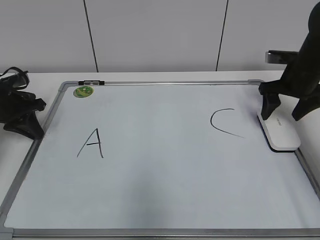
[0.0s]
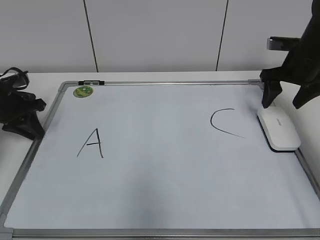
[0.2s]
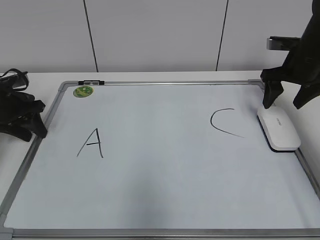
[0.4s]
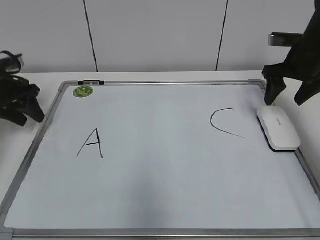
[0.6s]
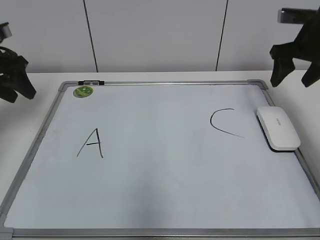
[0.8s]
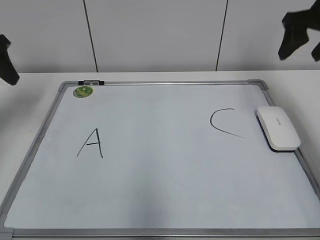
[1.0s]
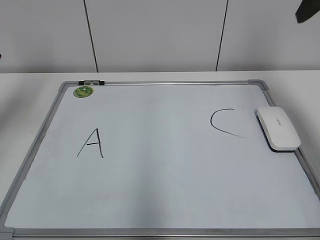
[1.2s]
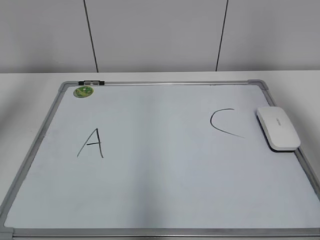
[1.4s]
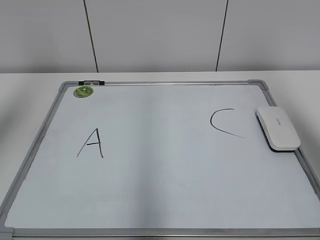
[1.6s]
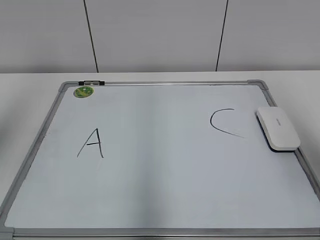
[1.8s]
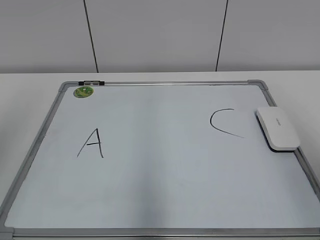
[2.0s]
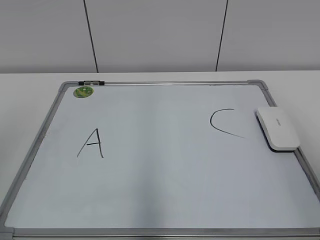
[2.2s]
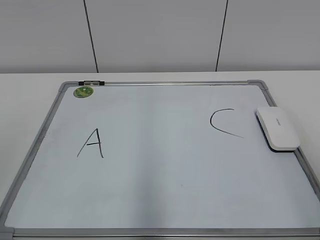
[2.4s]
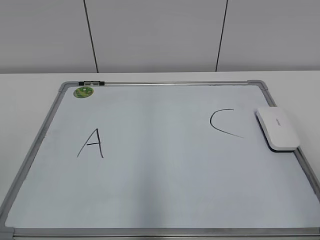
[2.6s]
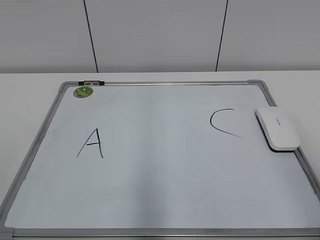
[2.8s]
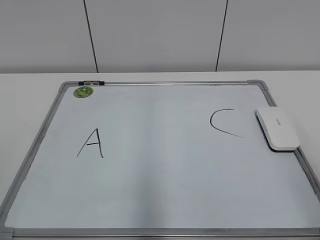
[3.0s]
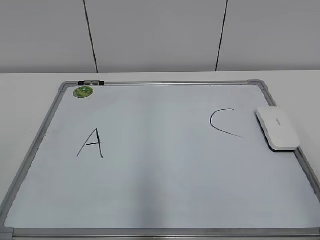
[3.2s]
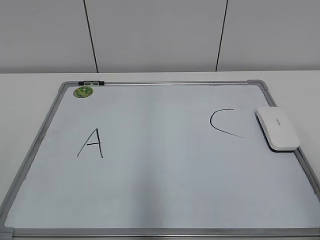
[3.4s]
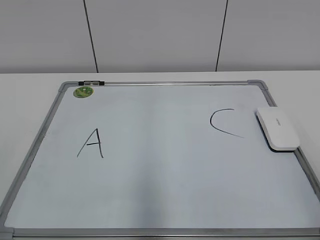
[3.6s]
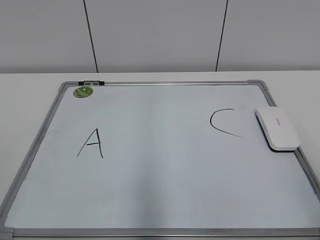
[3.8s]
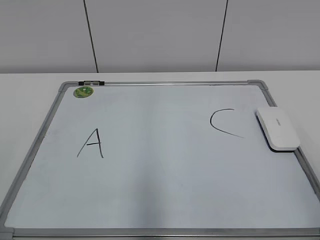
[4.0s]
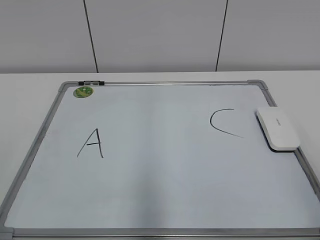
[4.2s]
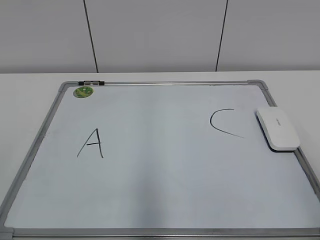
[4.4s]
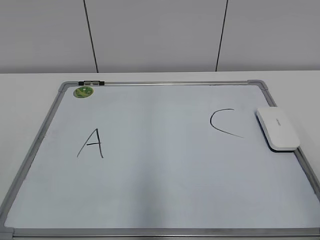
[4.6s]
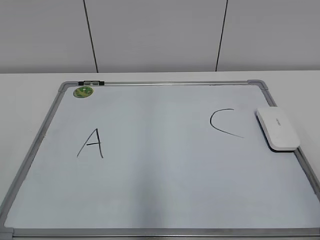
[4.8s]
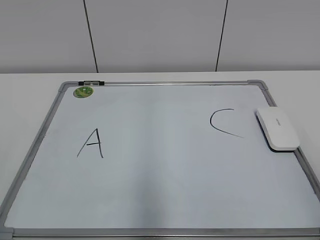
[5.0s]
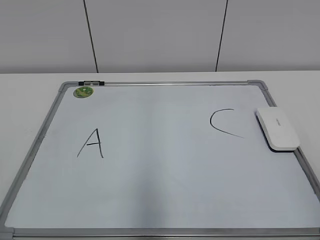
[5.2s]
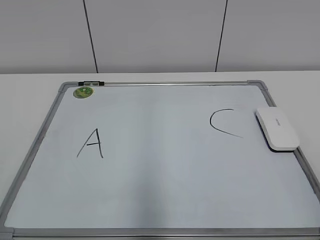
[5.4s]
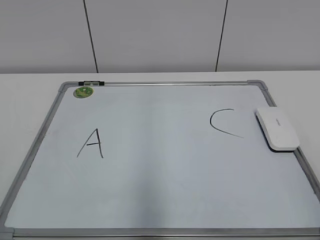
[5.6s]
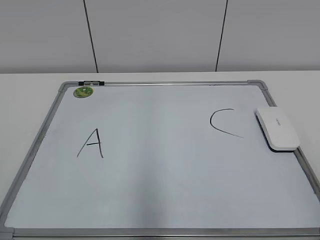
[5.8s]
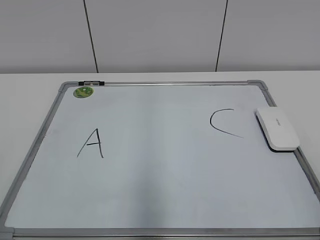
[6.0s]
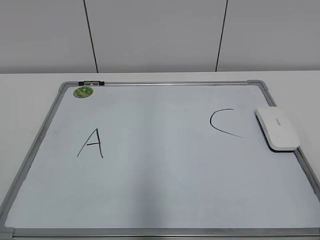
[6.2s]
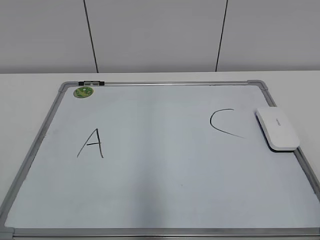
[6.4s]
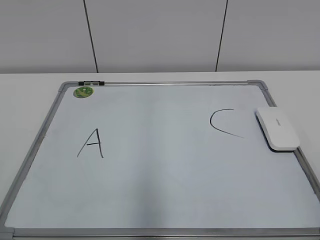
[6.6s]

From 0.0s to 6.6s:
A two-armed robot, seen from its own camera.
Task of the whole recording: pick up the eraser on the blackboard and erase the letter "B".
From 0.0s to 1.6s: The two grippers go roughly 30 cm upward and backward. The left gripper opens its fingers.
From 1.6s to 3.2s: Both grippers travel together backward and downward, roughly 25 cm.

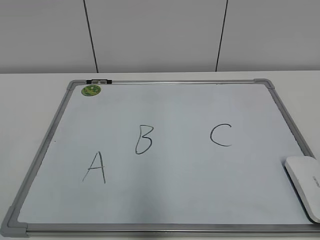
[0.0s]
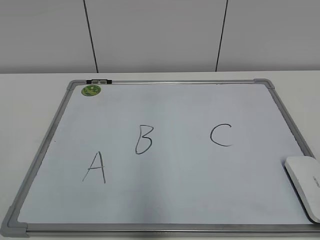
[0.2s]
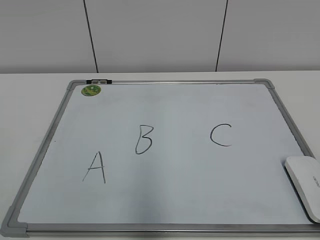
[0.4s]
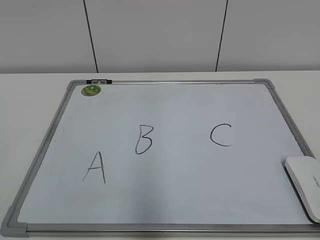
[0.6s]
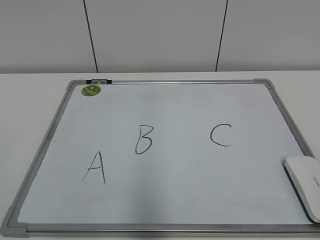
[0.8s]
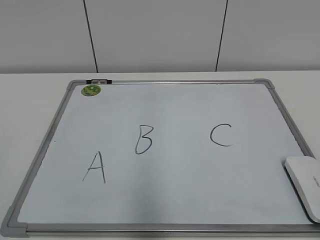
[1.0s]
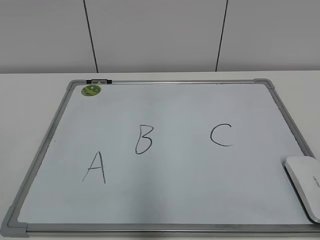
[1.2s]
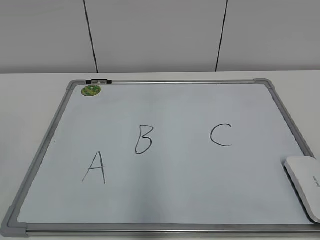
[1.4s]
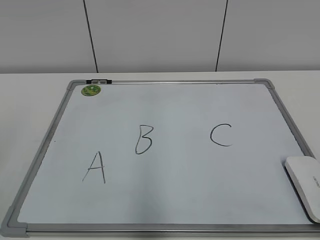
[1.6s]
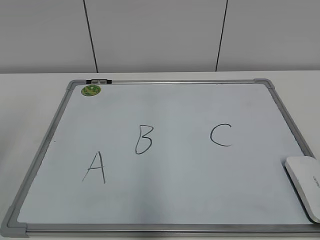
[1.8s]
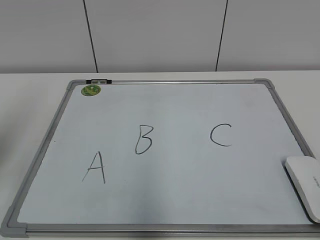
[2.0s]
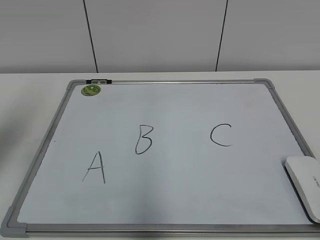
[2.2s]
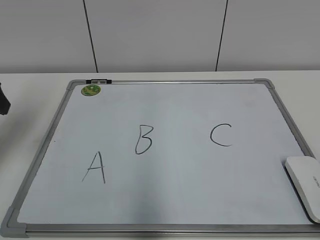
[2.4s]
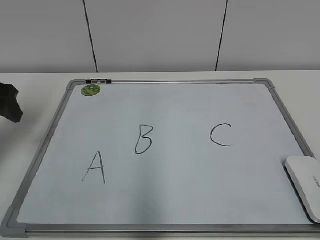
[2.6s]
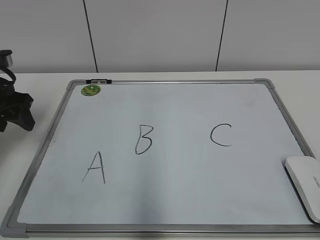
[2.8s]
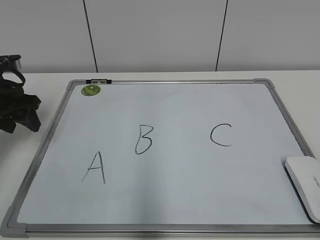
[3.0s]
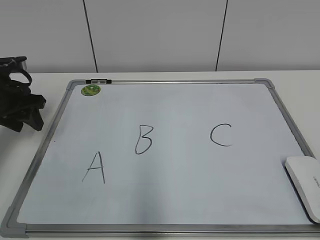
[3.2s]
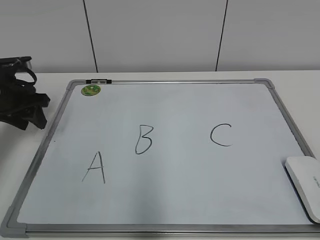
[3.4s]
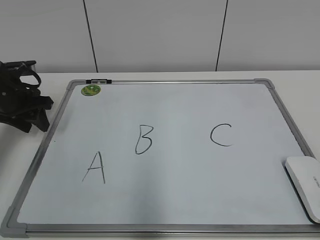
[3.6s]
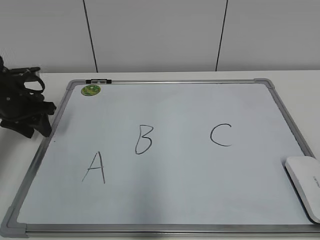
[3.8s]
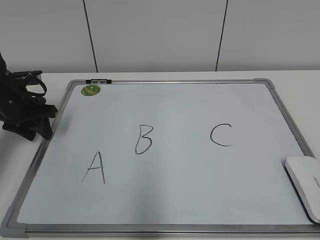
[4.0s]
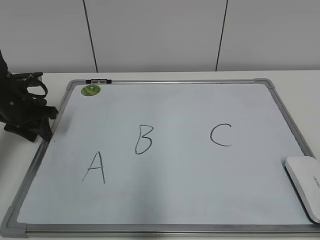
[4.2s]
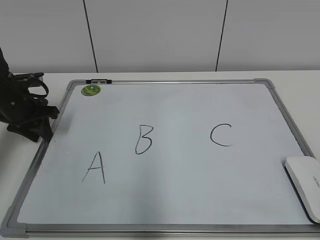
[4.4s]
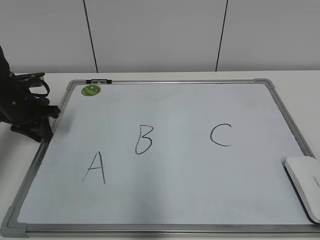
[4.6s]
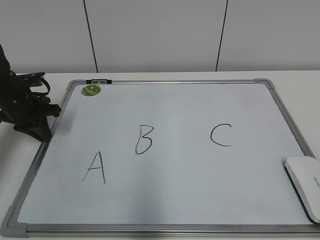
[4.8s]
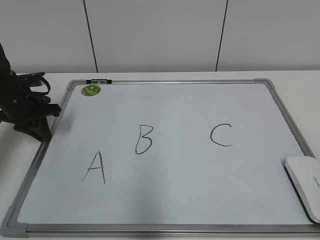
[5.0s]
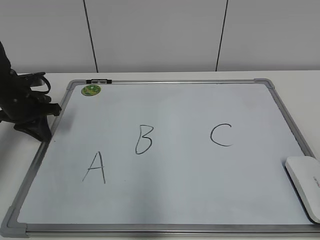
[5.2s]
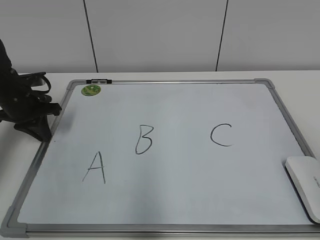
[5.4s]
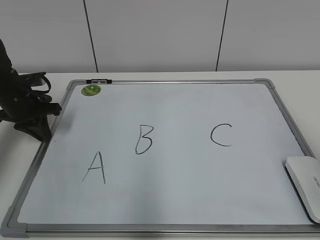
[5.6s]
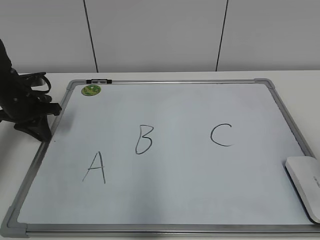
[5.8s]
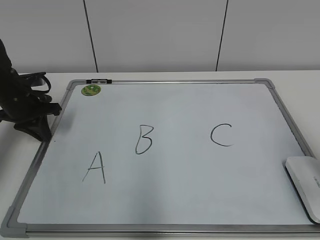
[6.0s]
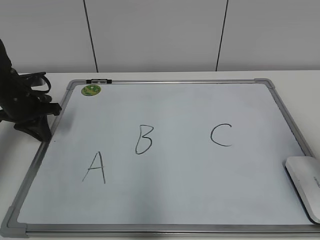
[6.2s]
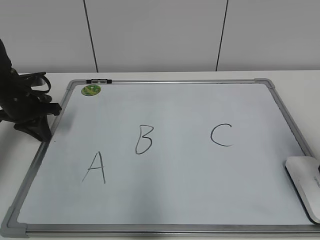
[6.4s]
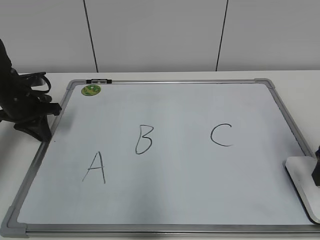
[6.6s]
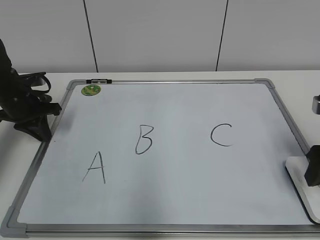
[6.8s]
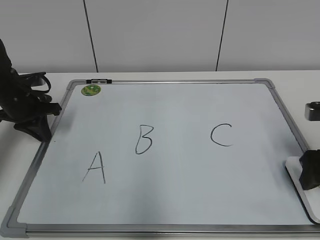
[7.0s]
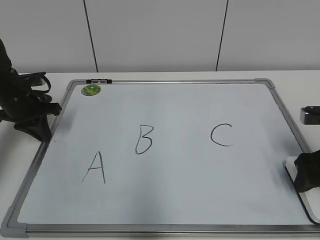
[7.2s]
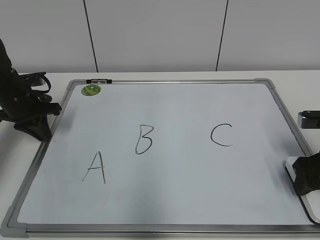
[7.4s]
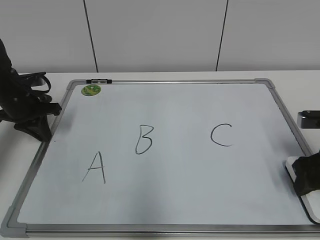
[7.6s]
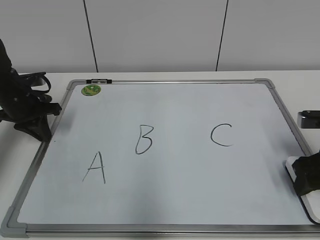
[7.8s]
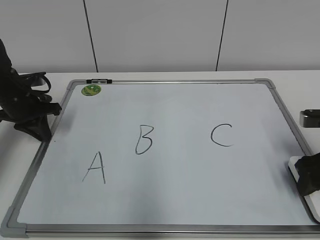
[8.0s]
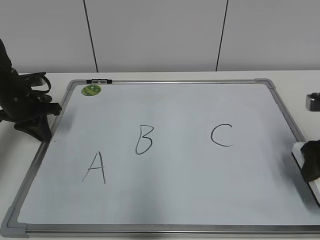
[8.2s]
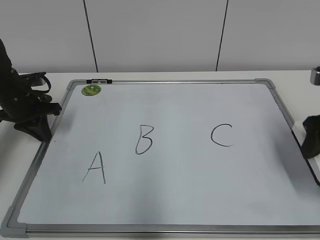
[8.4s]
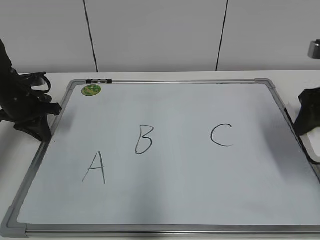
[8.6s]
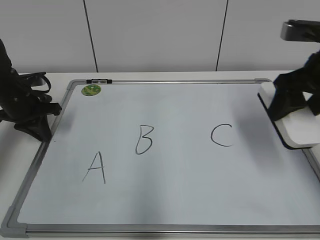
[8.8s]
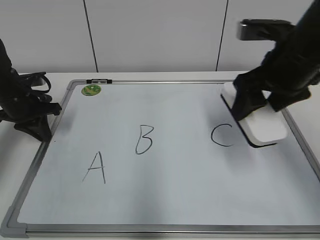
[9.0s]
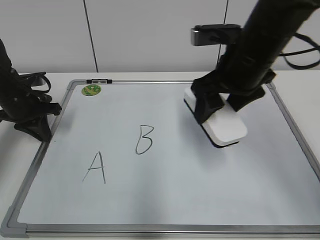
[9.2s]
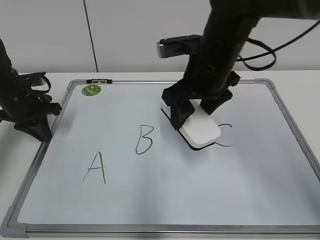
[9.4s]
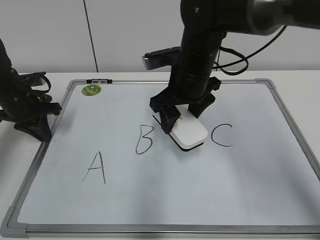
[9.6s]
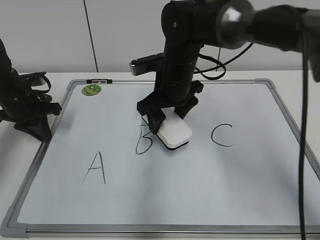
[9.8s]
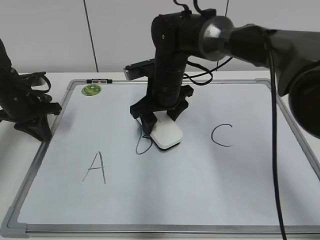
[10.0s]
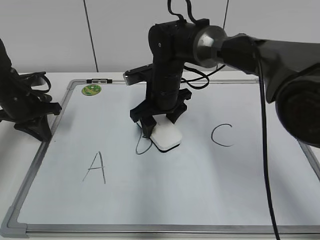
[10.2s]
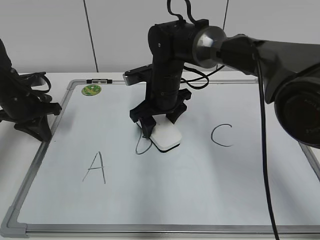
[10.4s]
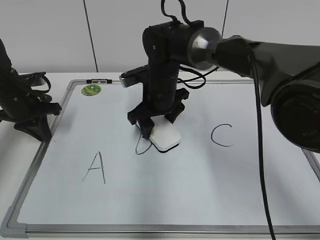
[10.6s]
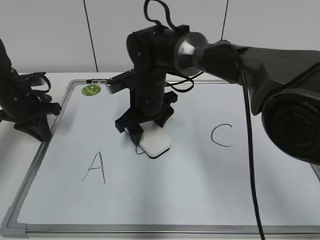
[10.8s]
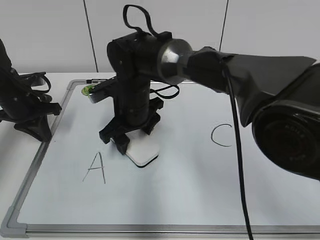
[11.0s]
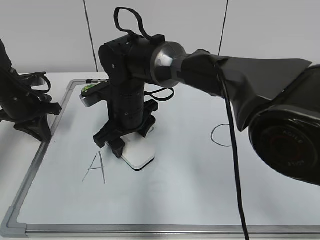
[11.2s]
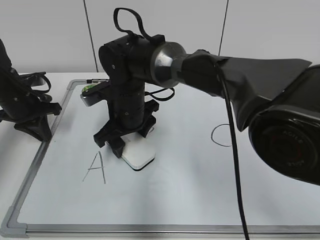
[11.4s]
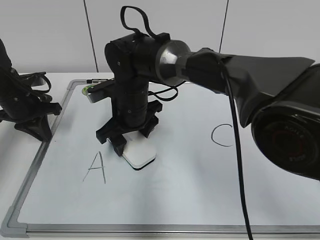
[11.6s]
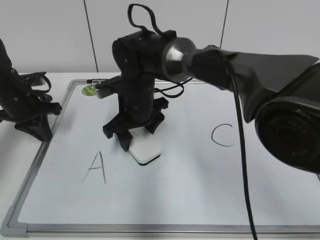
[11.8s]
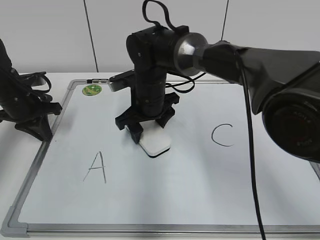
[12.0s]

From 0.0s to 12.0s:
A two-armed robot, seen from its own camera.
Task of the whole recording: pick up the eraser on the blackboard and erase the letter "B".
Step, from 0.0s to 5.0s: Hold the drawing board steady with your left hand.
From 1.6s to 3.0s: The left gripper goes approximately 30 cm forward and downward.
From 3.0s to 4.4s: The left gripper heads downward, covering approximately 5 cm, and closes up.
From 4.4s to 6.0s: The left gripper closes; the right gripper heads forward, covering about 20 cm.
From 6.0s to 7.6s: The right gripper heads downward and forward, covering about 15 cm.
From 7.6s to 9.0s: The right gripper is displaced upward and to the left by approximately 15 cm.
From 9.0s to 10.4s: The right gripper travels to the left, downward and forward by roughly 25 cm.

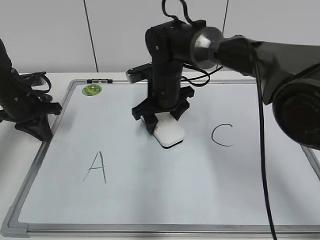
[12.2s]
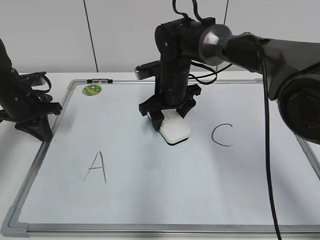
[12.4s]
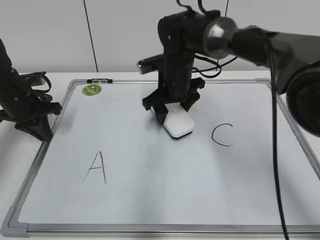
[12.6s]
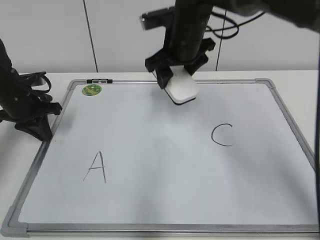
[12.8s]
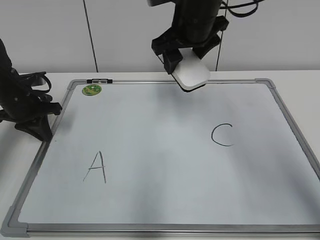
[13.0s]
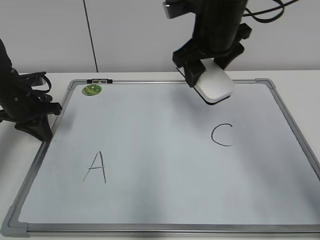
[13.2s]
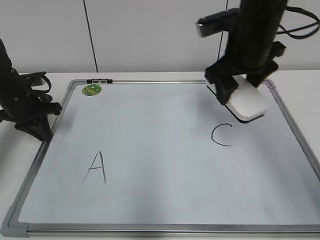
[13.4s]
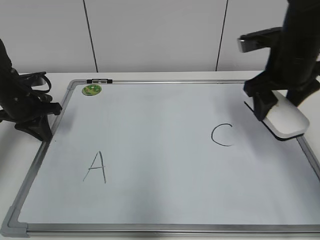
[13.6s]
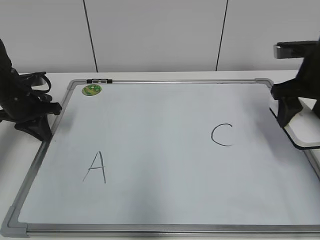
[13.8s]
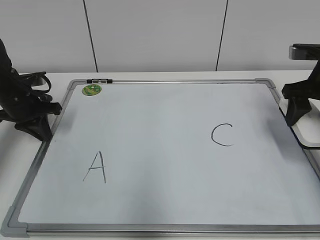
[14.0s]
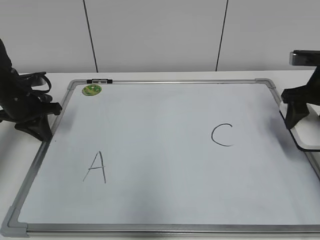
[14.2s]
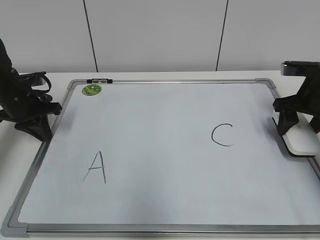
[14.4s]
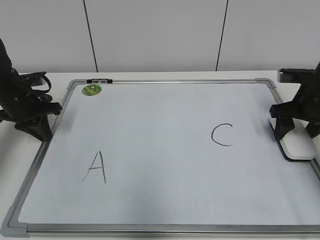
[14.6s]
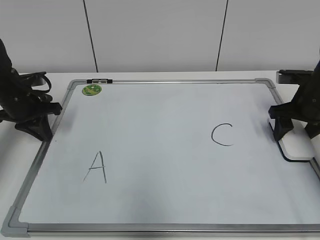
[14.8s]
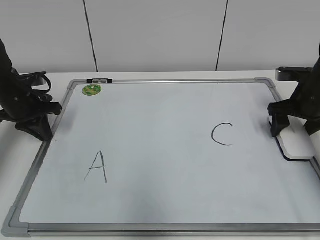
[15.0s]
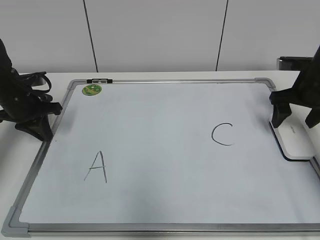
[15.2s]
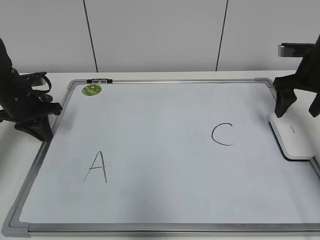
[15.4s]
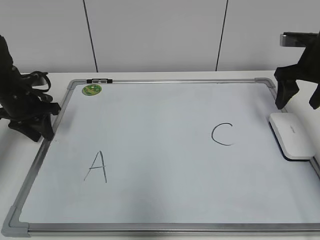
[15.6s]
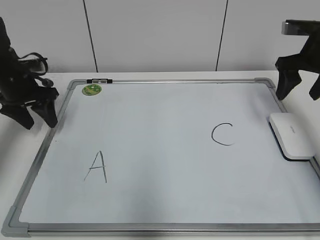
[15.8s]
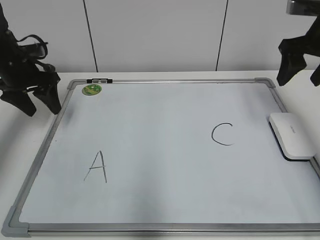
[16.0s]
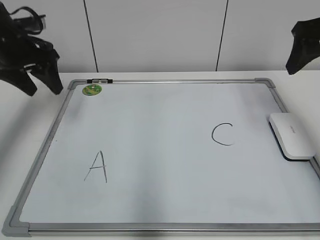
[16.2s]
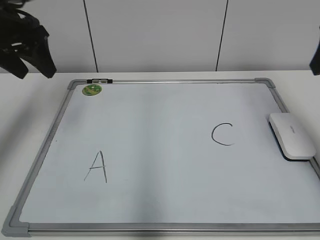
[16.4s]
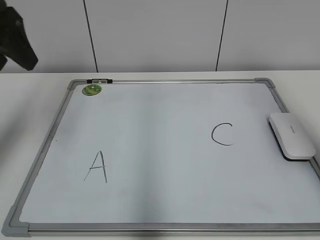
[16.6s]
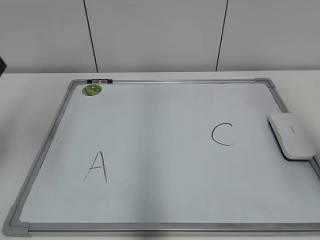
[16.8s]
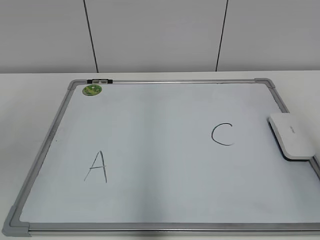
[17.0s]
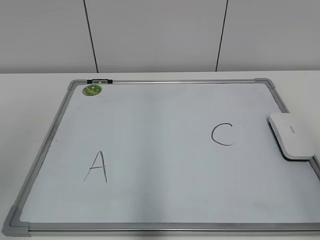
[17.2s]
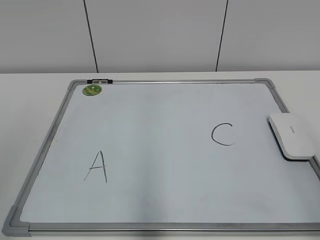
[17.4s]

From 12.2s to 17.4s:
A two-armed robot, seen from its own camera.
Task of the whole recording: pick up the eraser on the blackboard and erase the letter "B".
Step, from 12.6s to 15.0s: Put down the eraser with your right hand.
From 12.2s to 14.0s: The right gripper heads to the right, covering some 25 cm.
From 14.0s to 15.6s: The left gripper opens, while the right gripper shifts roughly 5 cm forward, travels downward and back again, some 5 cm each way, and opens its fingers.
From 15.6s to 17.4s: The left gripper goes about 40 cm backward and upward, and opens, while the right gripper moves backward, about 35 cm, and closes up.
